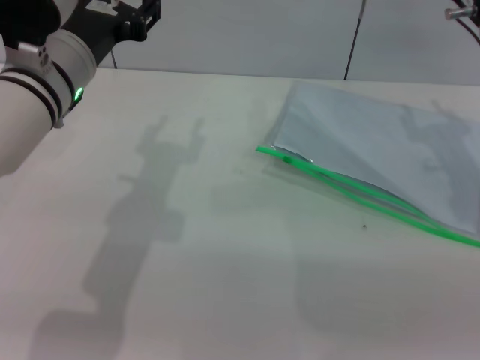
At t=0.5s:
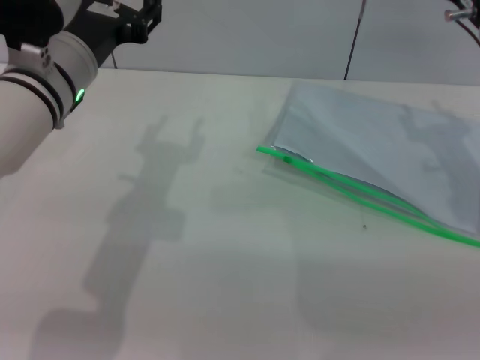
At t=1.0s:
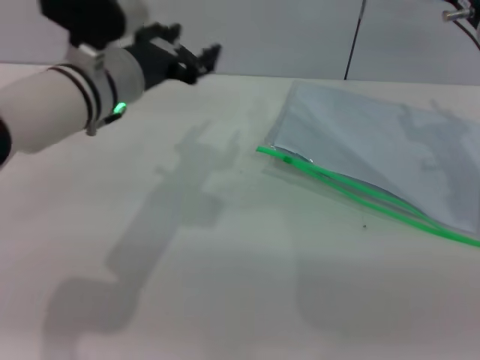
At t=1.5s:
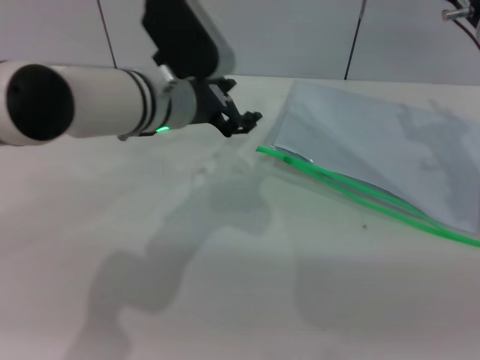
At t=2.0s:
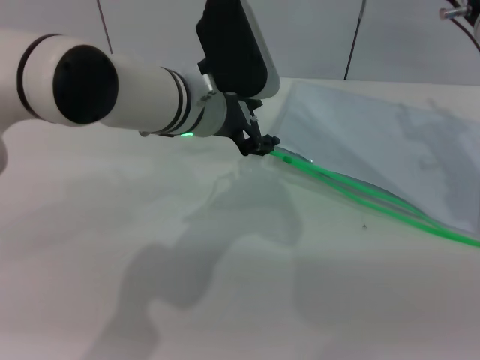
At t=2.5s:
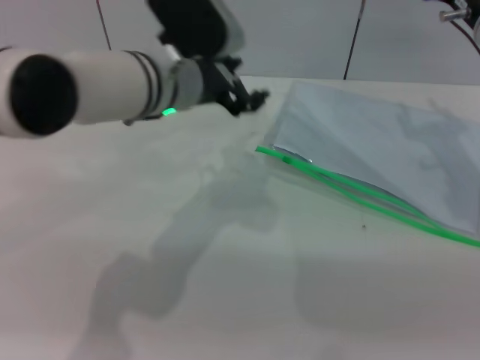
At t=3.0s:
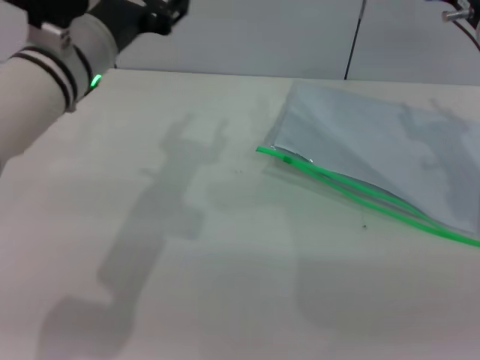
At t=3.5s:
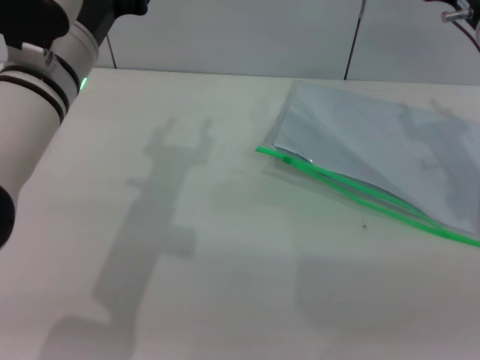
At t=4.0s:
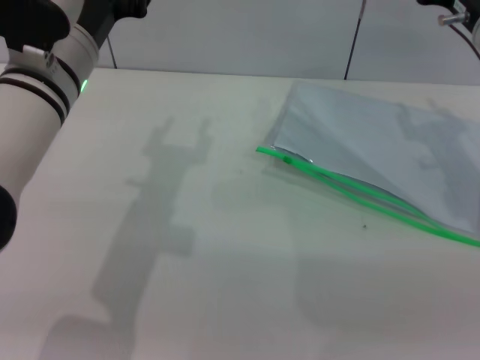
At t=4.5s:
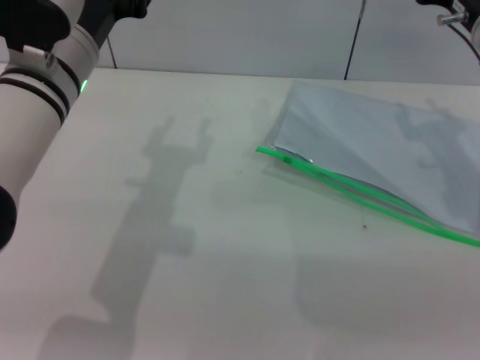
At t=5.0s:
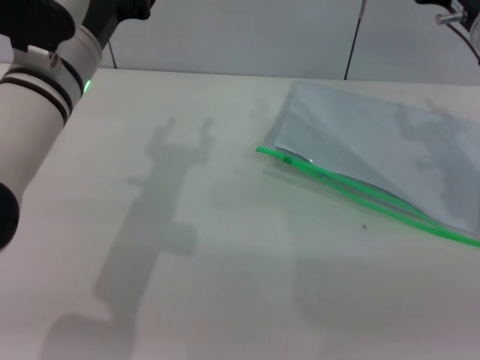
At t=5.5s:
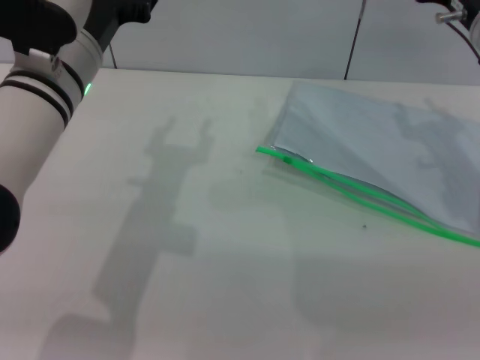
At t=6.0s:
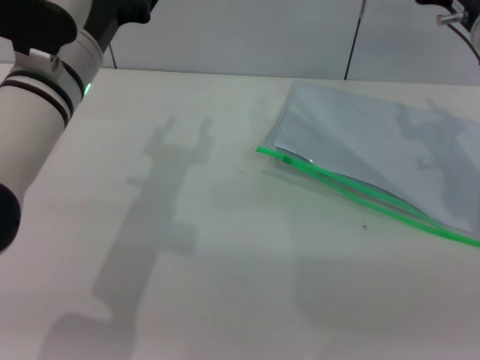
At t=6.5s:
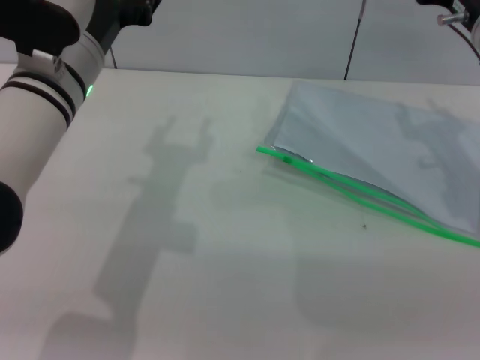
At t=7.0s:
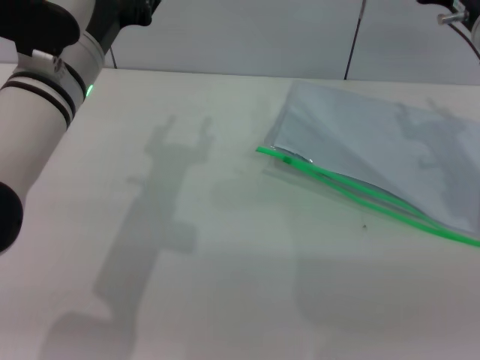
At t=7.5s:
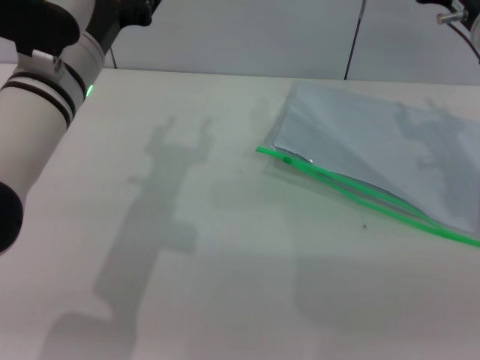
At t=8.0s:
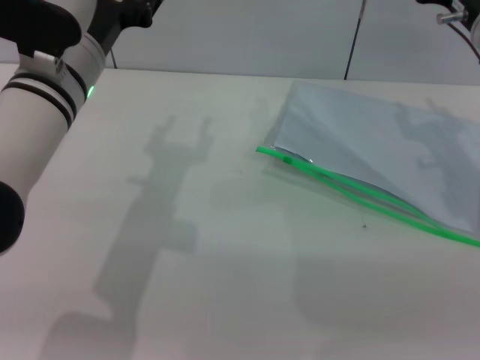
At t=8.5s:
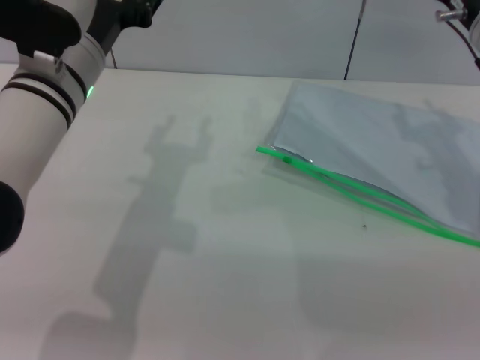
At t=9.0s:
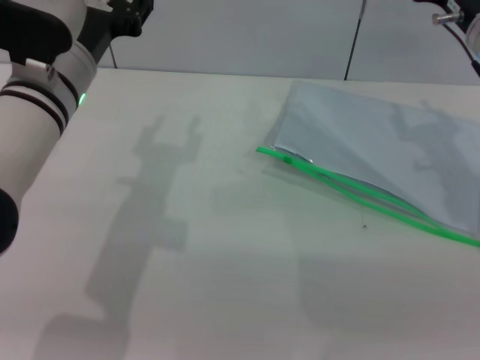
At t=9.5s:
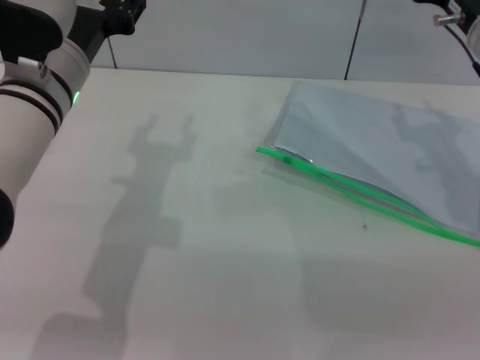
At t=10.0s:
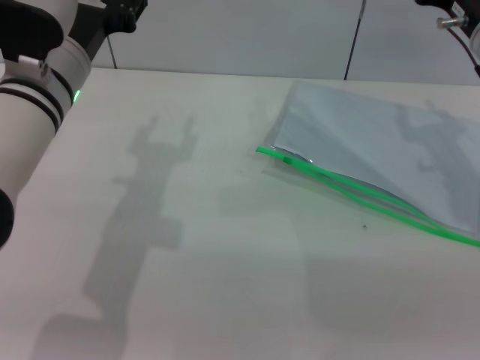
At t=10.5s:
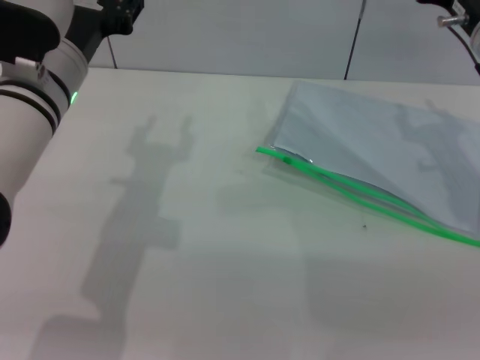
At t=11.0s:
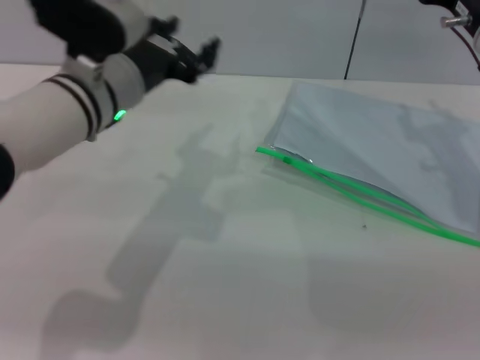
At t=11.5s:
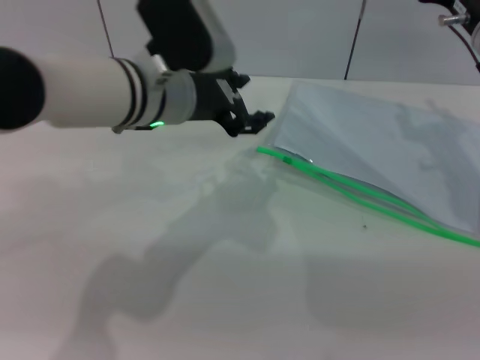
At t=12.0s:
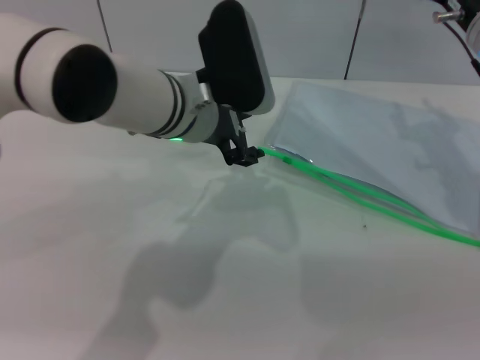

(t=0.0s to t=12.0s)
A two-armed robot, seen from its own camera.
t=0.0s - t=2.0s: The left gripper goes some 10 cm to the right.
t=2.0s - t=4.0s: The left gripper moves to the left, approximately 10 cm.
t=4.0s - t=8.0s: Neither gripper changes place.
t=8.0s - t=10.0s: The grippers move only a little.
t=10.0s - t=12.0s: The left gripper heads to the right, covering roughly 10 cm.

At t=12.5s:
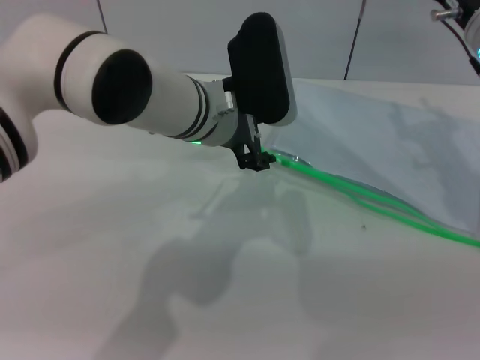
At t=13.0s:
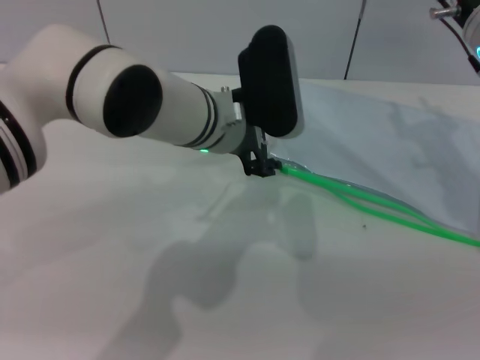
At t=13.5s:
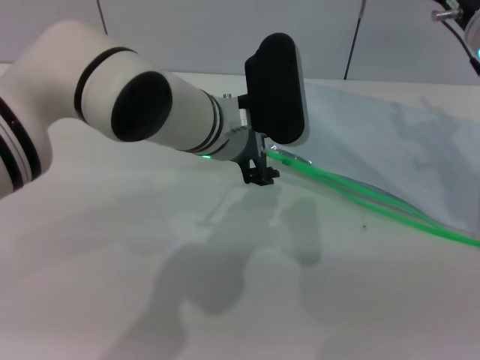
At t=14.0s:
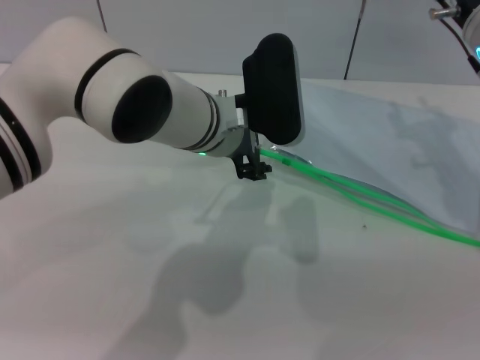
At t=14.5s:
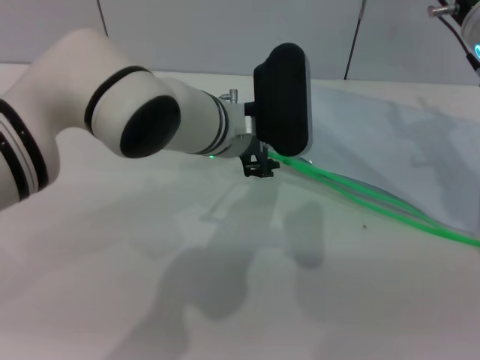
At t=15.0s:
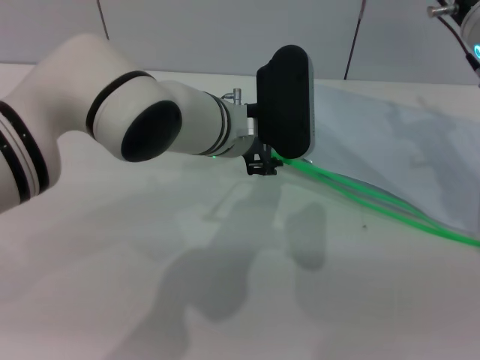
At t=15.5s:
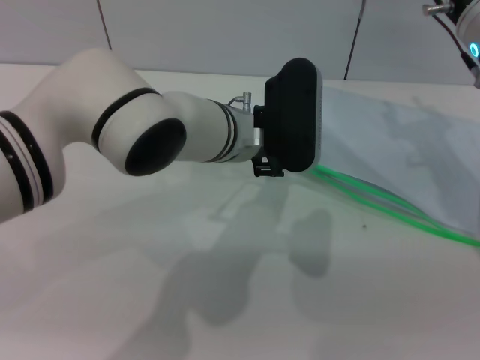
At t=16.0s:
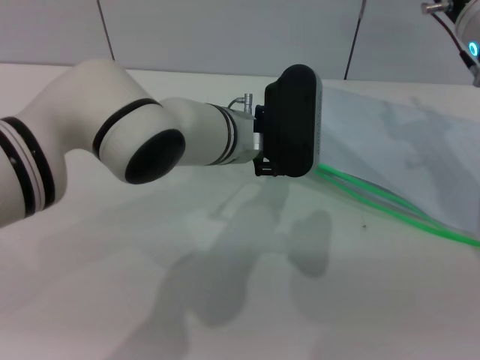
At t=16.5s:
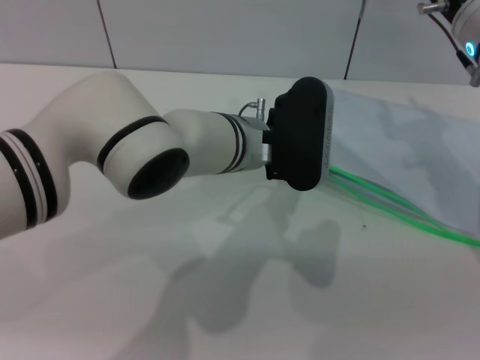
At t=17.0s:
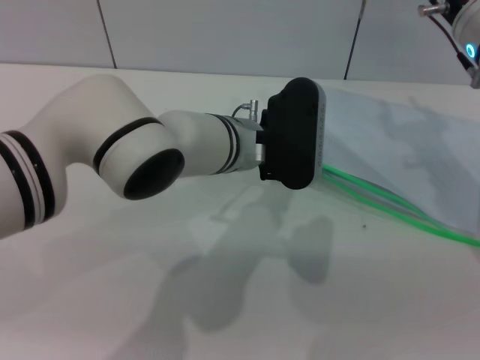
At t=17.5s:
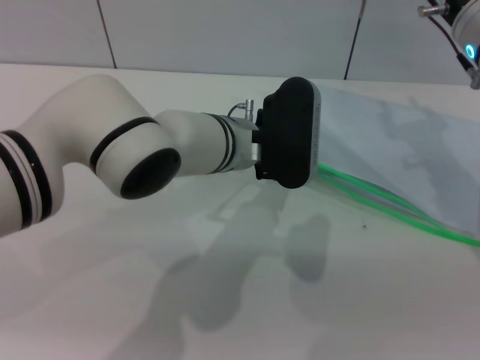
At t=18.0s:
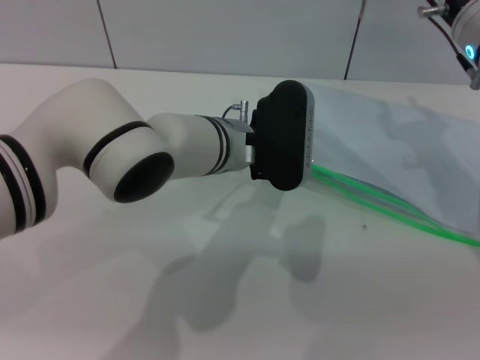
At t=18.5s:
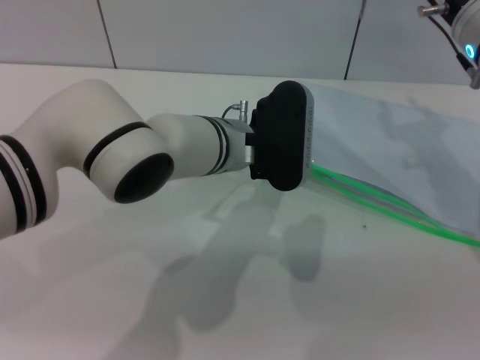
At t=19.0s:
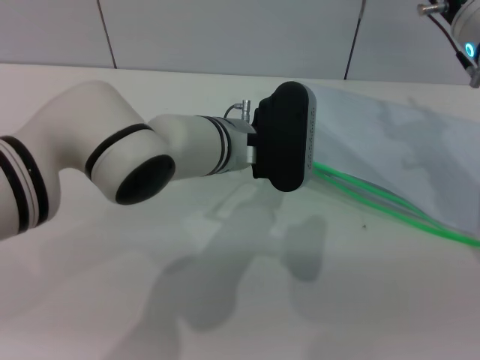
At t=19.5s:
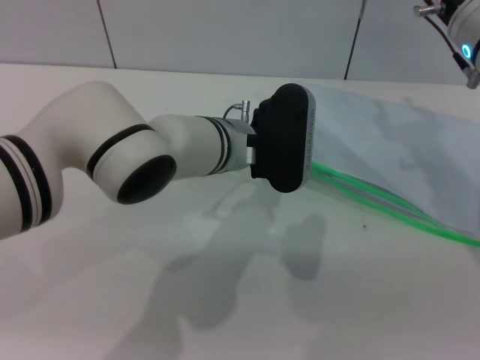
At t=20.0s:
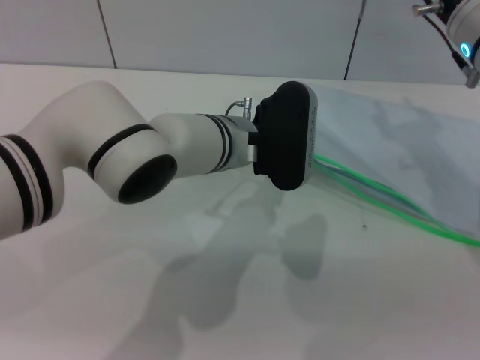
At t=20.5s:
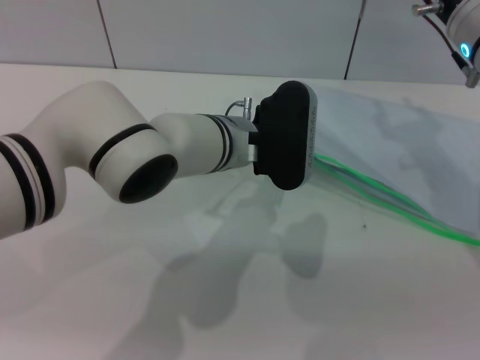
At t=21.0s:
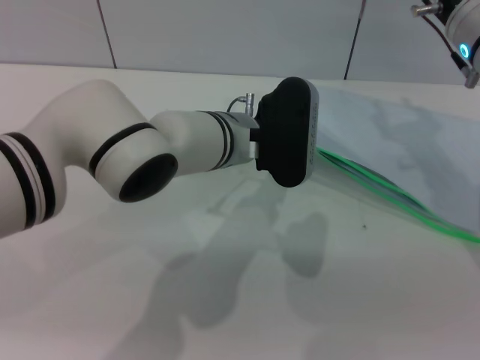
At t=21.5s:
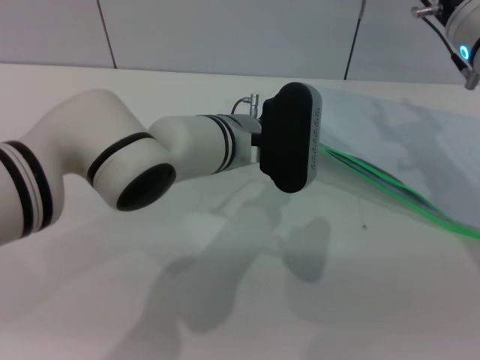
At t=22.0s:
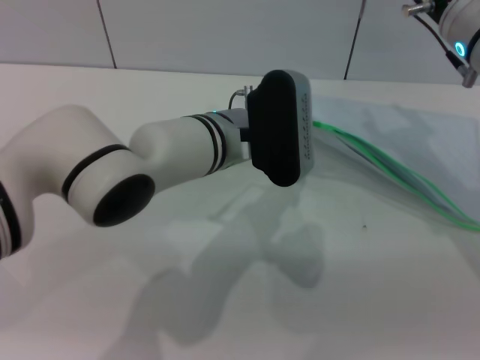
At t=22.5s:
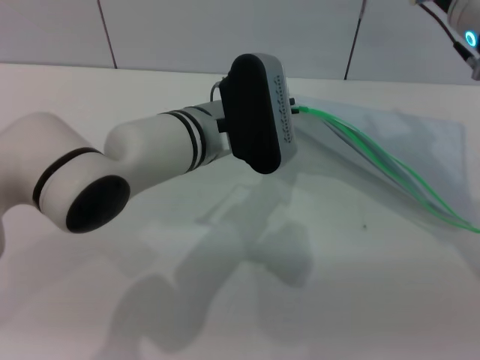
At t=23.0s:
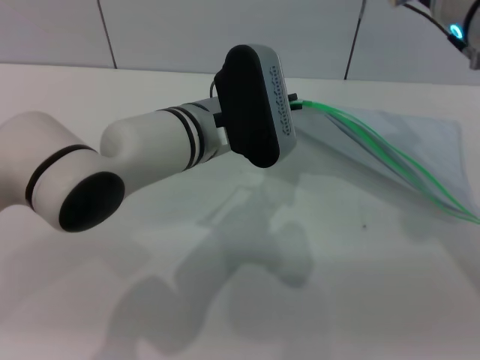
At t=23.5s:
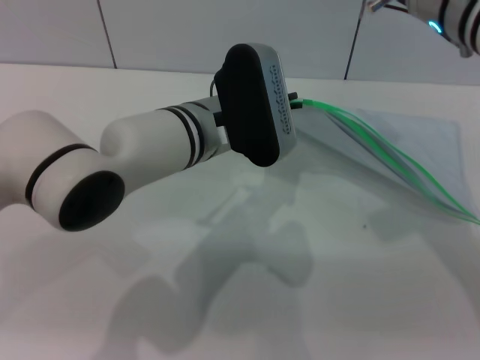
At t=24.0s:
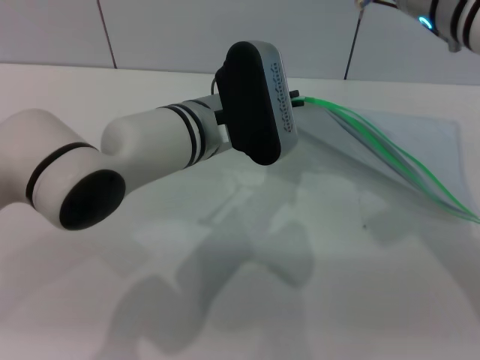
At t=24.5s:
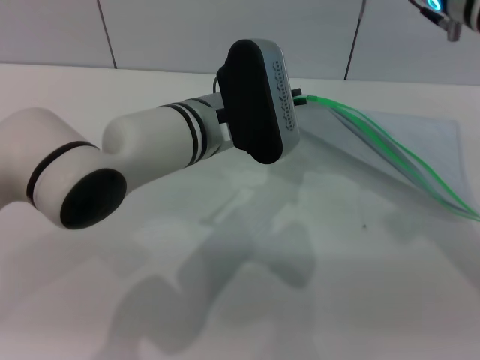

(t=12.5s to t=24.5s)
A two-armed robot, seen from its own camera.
Step, t=12.5s - t=22.0s: Pick up the transparent plastic bag with the left gripper.
t=12.5s - t=18.5s: The grippers make only small movements.
t=18.5s - t=20.5s: The left gripper closes.
t=20.5s - t=22.5s: The grippers move only a little.
t=22.5s - t=24.5s: The right gripper changes place by about 5 cm.

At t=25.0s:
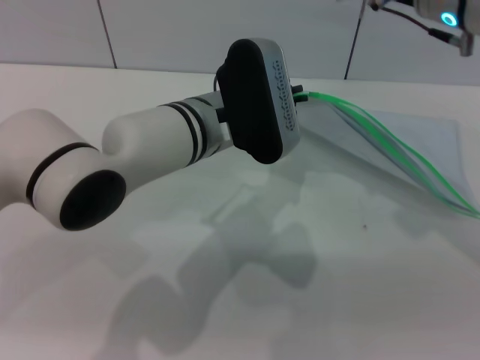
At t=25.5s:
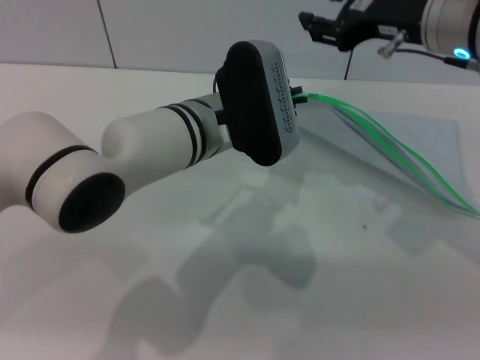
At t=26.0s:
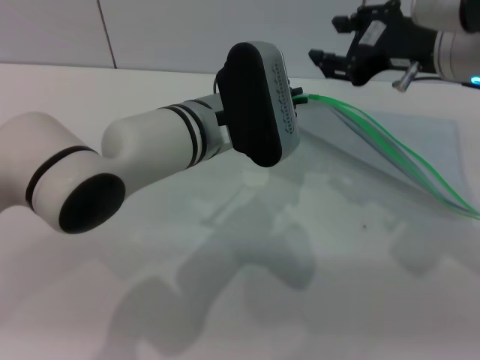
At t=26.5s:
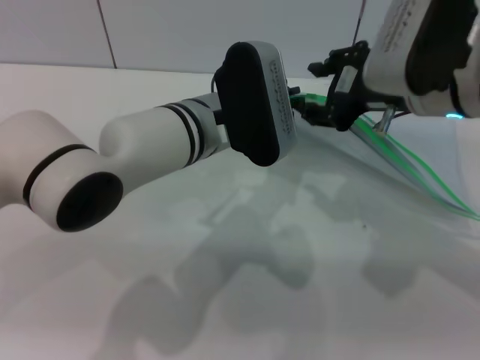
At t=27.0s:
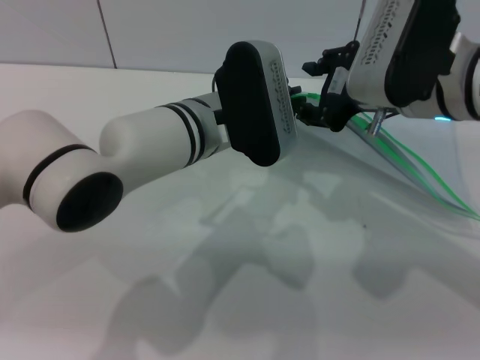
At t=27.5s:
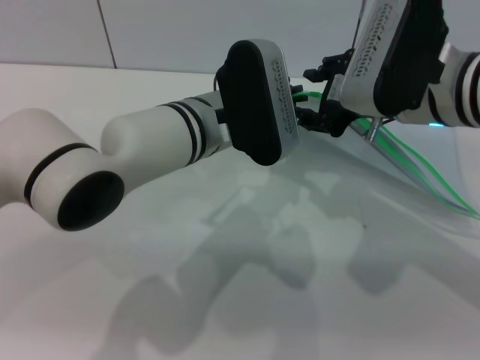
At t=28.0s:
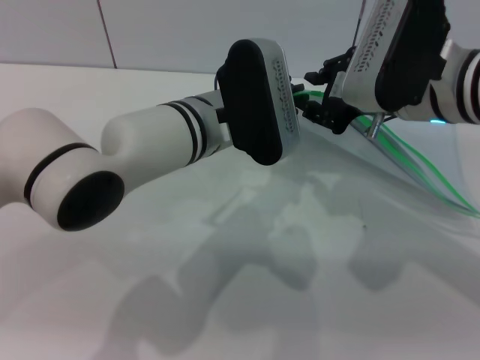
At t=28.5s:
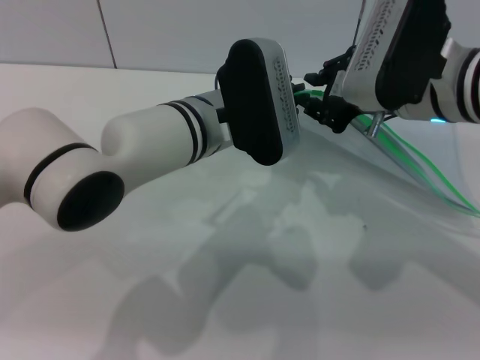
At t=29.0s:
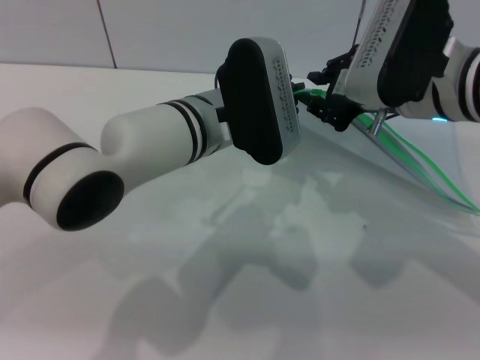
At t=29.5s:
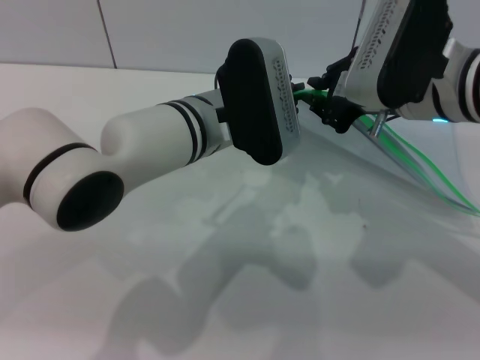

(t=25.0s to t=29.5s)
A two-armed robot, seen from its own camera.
t=25.0s - t=27.0s: The right gripper goes roughly 5 cm backward.
t=27.0s - t=29.5s: The right gripper closes up.
